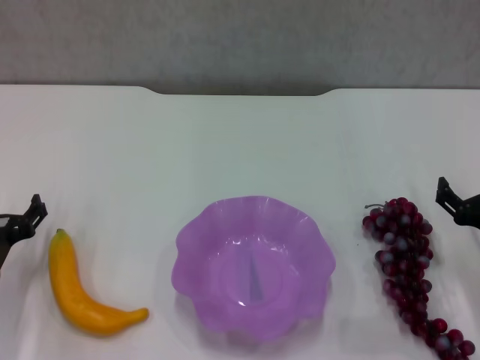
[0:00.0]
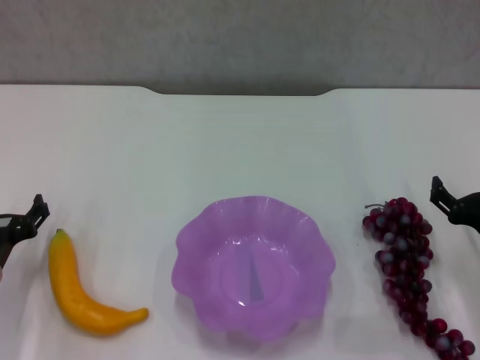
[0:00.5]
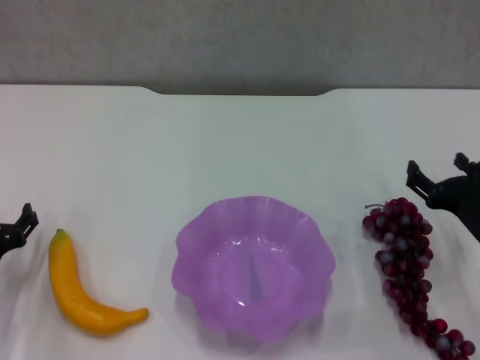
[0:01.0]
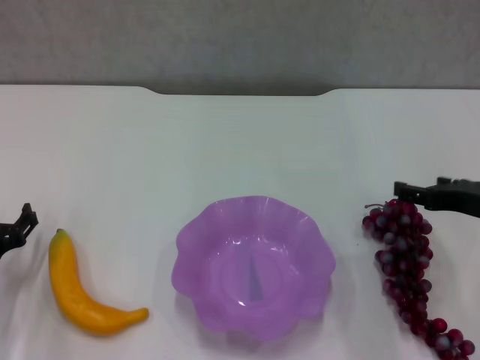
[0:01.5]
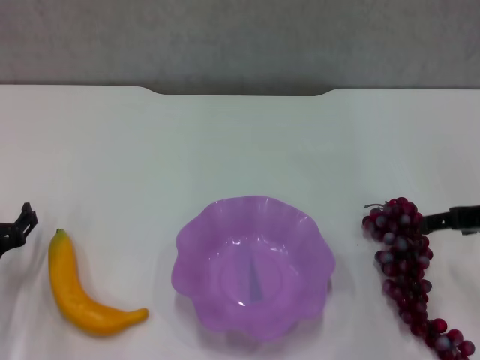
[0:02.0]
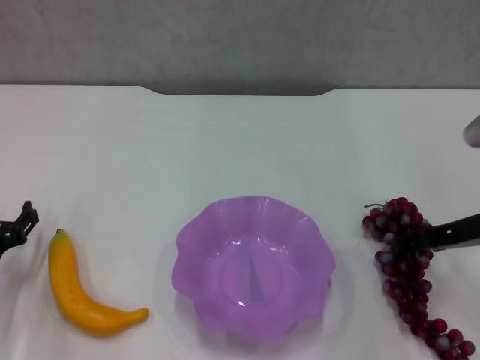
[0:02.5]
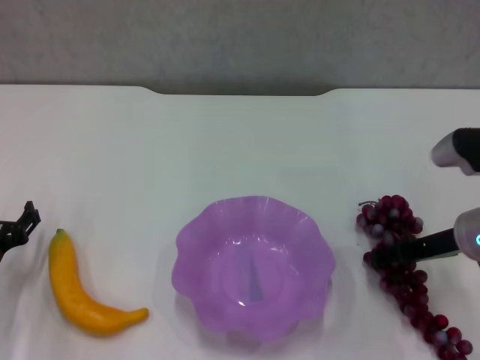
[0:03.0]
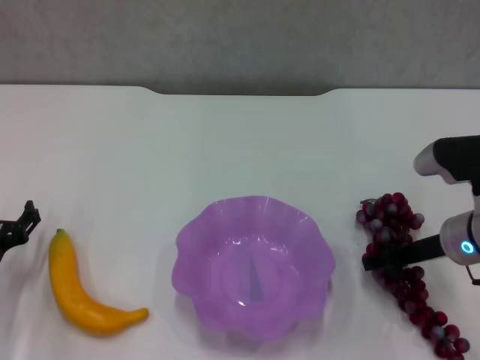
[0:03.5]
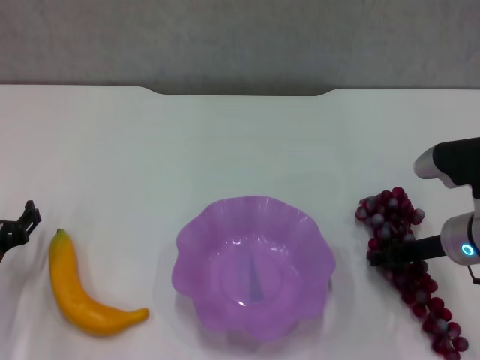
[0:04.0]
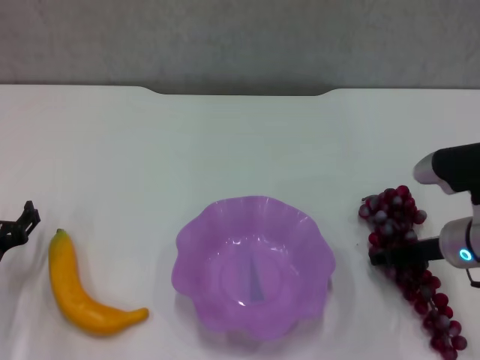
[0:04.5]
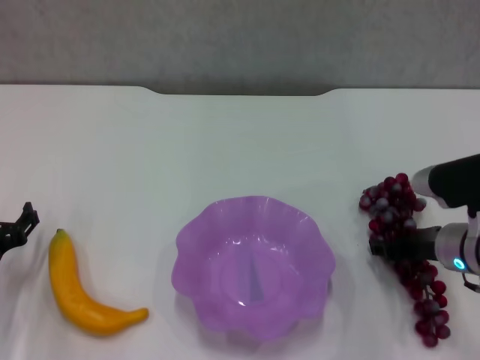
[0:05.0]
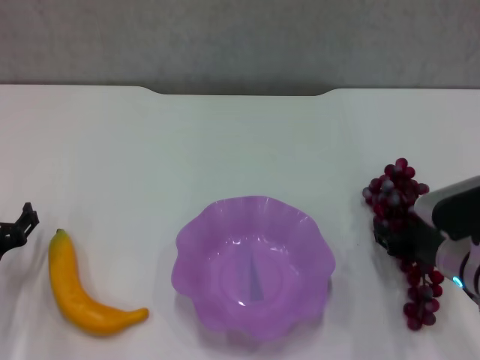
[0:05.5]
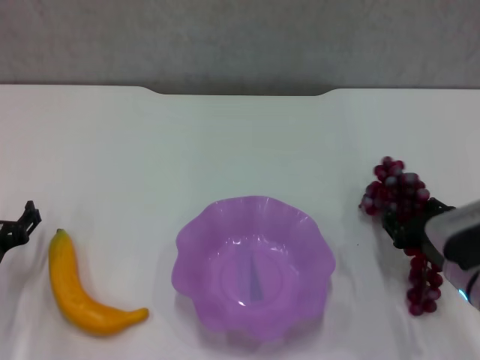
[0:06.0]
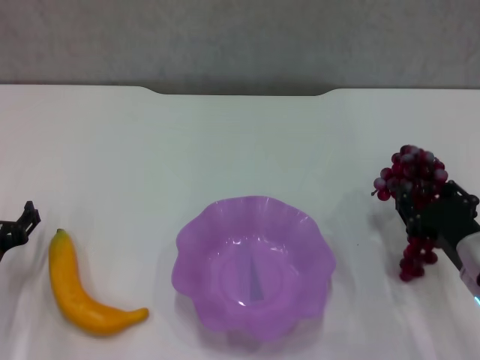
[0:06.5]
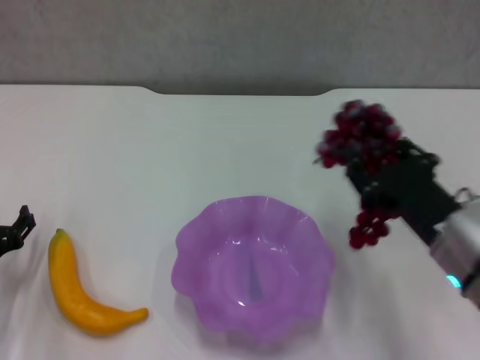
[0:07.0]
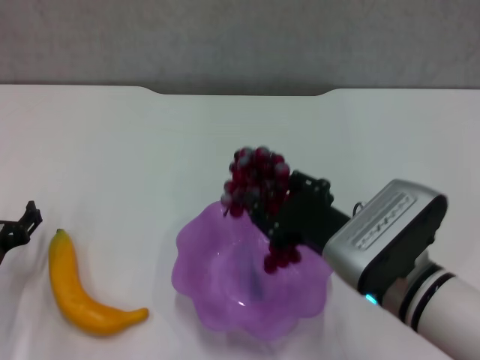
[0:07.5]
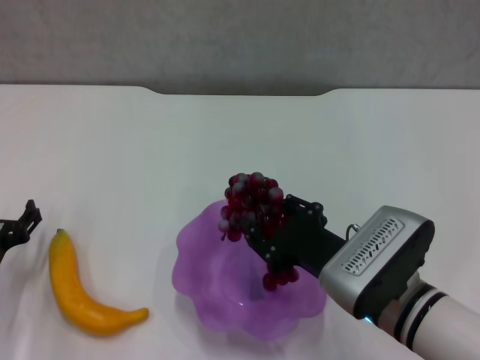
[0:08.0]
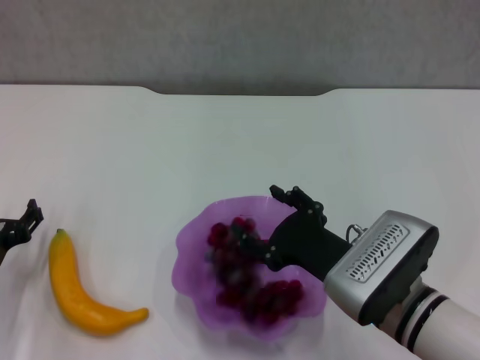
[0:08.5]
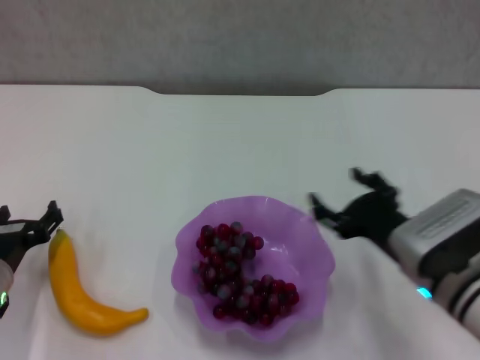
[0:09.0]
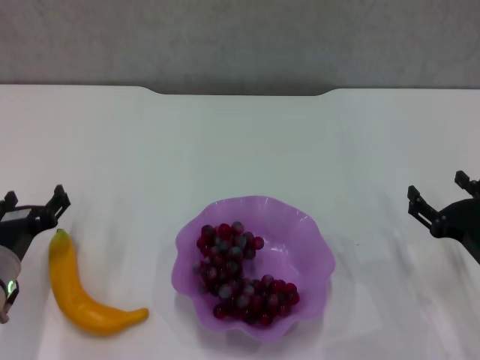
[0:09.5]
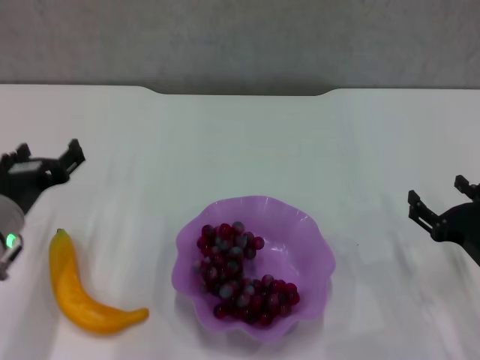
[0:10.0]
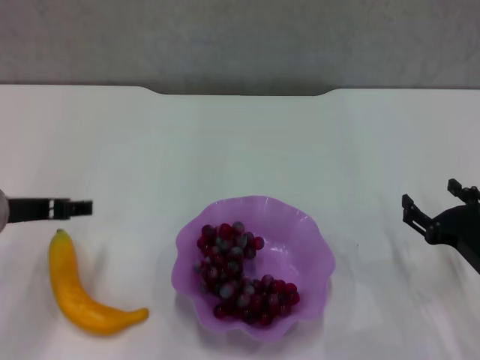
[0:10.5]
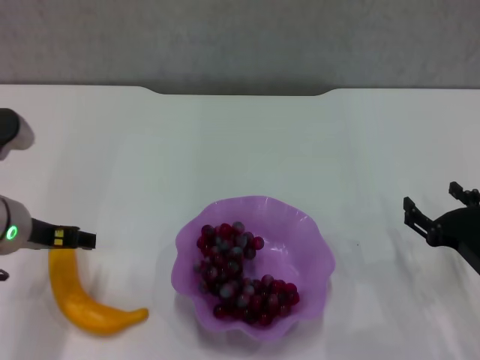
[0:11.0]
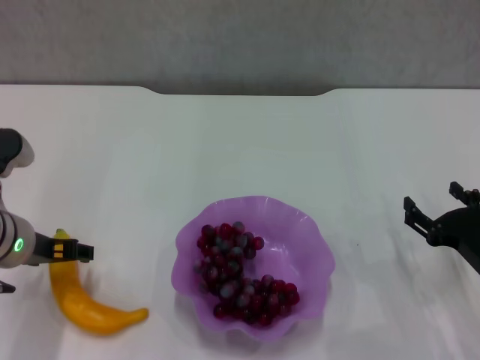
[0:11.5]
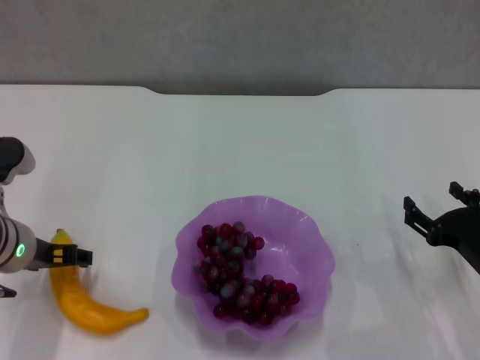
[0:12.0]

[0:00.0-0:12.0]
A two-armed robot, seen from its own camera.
Step, 0:00.0 to 0:03.5: Grasp the grape with right gripper.
Step, 0:04.0 to 0:08.5: Place the grape in the purple plate with right gripper.
0:00.0 to 0:02.0: The right gripper heads upward, covering approximately 15 cm.
0:02.0 to 0:04.0: The right gripper shifts roughly 10 cm downward and to the left, and closes.
0:04.0 to 0:06.0: The right gripper goes roughly 5 cm backward, and closes.
0:06.0 to 0:08.0: The right gripper moves to the left, approximately 10 cm.
0:08.0 to 0:10.0: The left gripper shifts some 5 cm upward. The right gripper shifts approximately 15 cm to the right, and opens up.

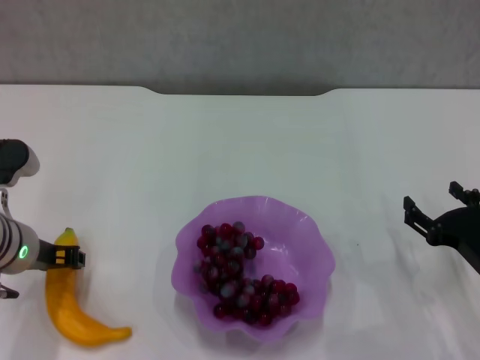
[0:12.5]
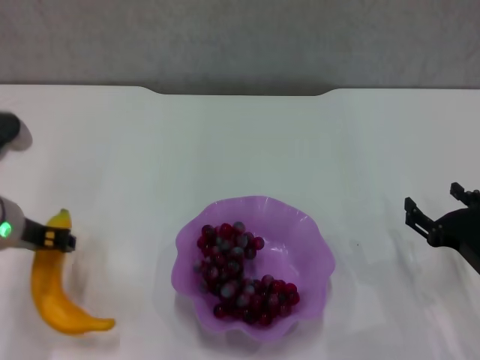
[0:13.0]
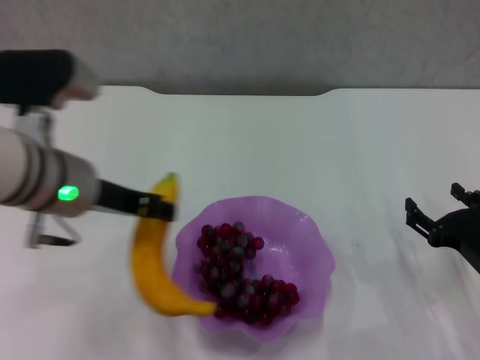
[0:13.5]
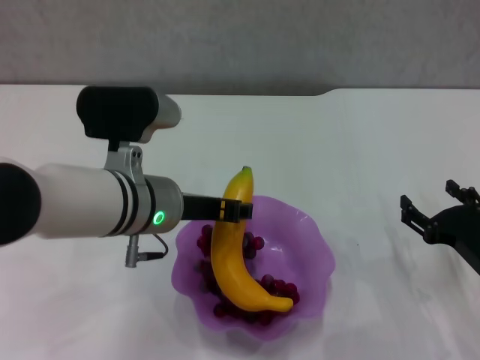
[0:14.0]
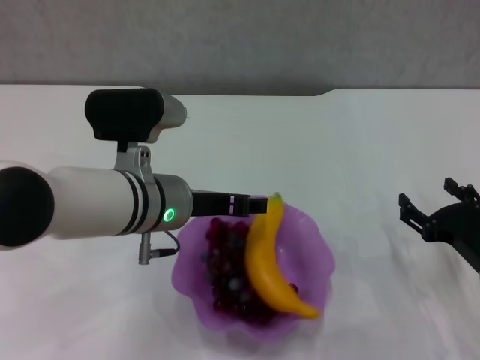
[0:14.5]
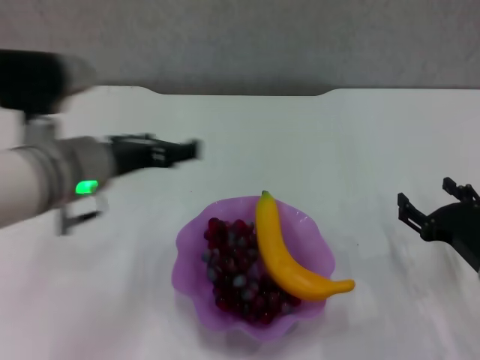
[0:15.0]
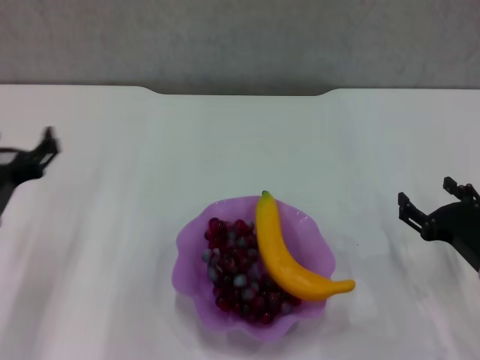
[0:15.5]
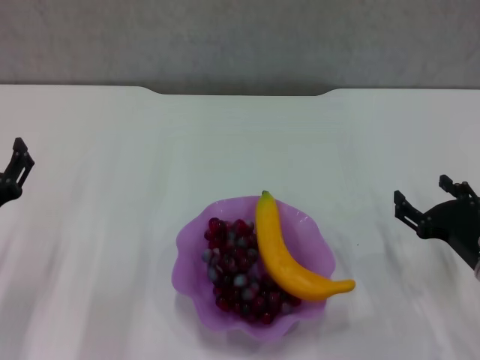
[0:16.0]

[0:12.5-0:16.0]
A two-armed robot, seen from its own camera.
Step, 0:13.0 to 0:14.5: Place the banana in the purple plate with left gripper.
0:12.5 to 0:14.5: The left gripper moves to the right, roughly 15 cm.
0:14.5 to 0:16.0: The left gripper travels to the left, downward and backward by roughly 20 cm, and opens up.
